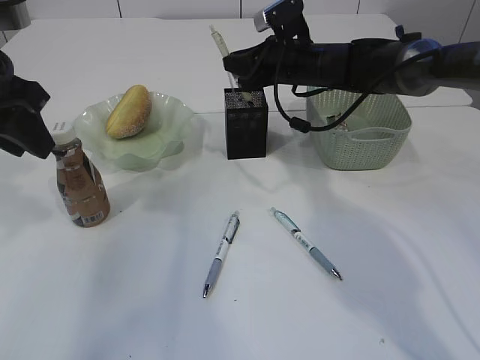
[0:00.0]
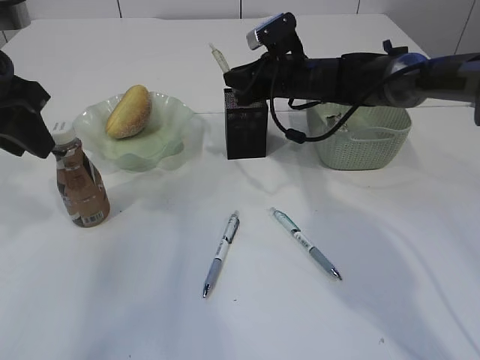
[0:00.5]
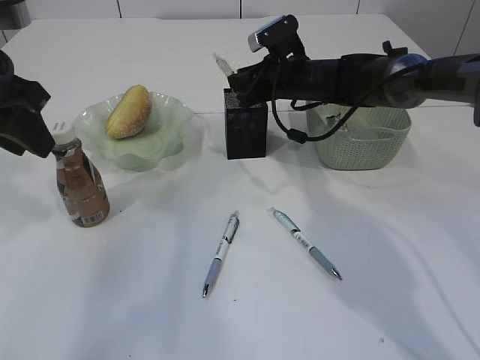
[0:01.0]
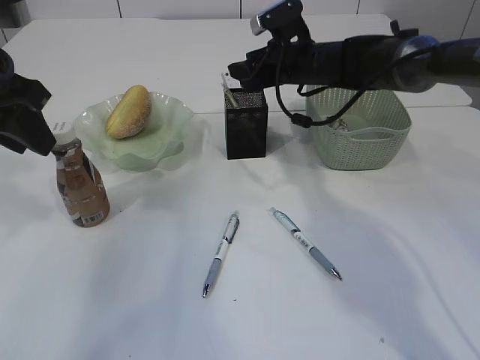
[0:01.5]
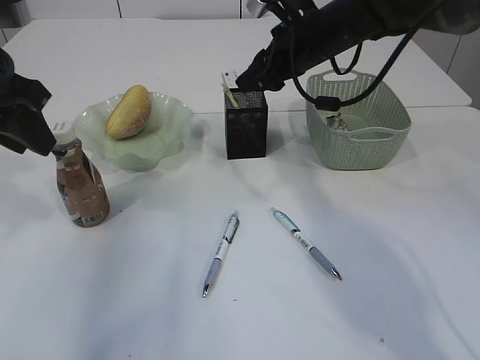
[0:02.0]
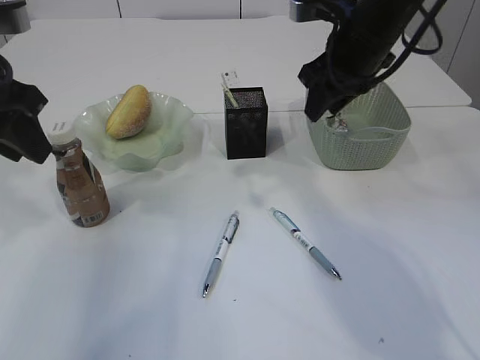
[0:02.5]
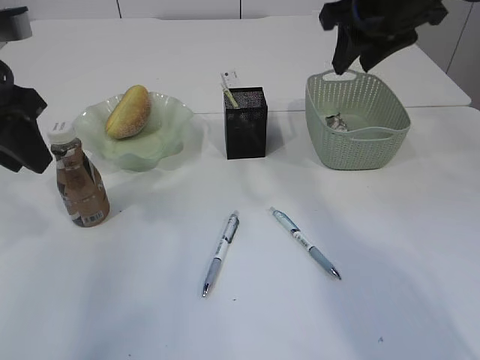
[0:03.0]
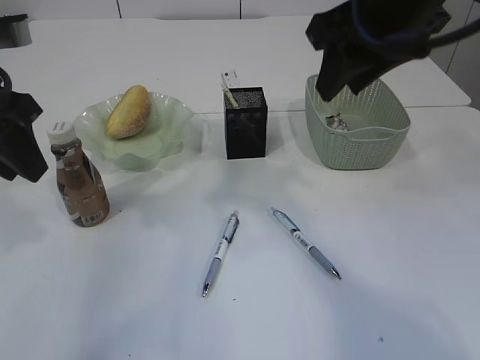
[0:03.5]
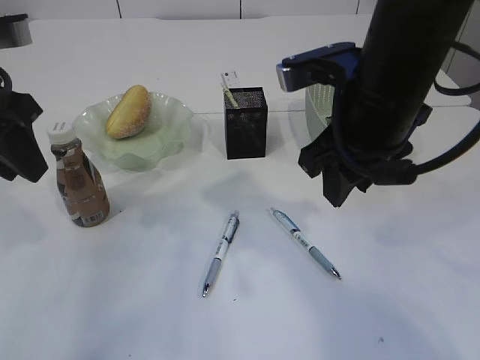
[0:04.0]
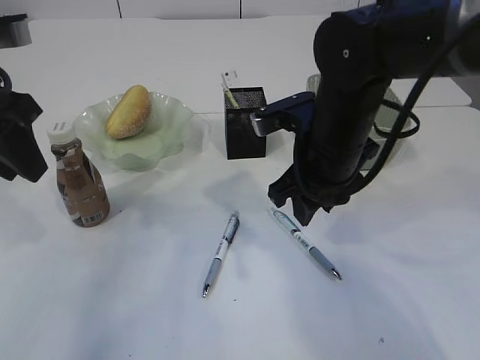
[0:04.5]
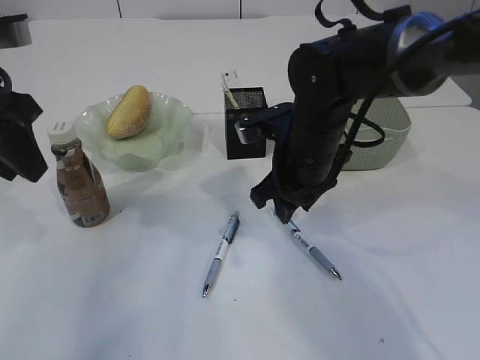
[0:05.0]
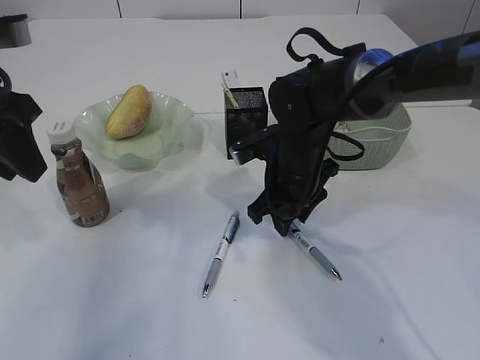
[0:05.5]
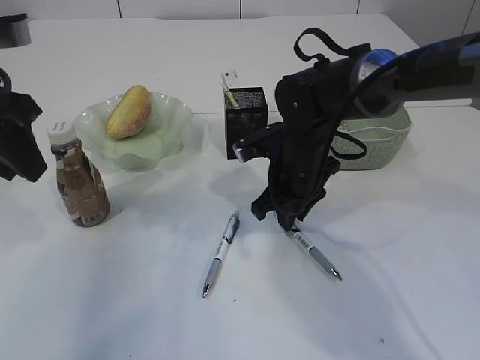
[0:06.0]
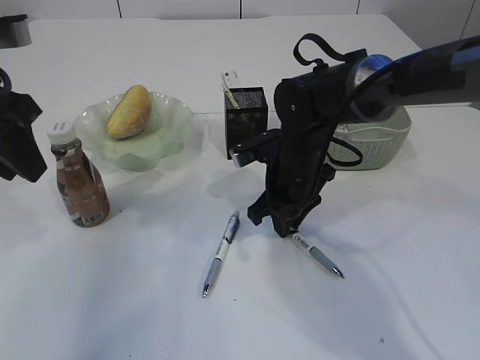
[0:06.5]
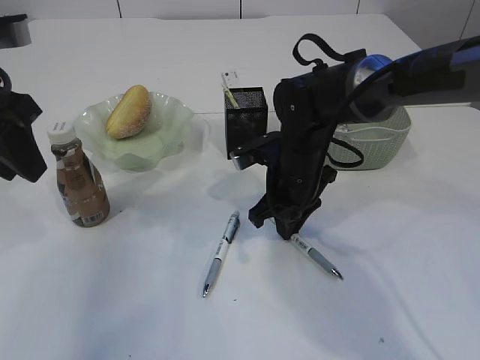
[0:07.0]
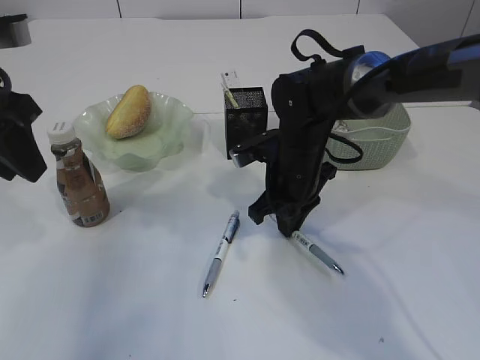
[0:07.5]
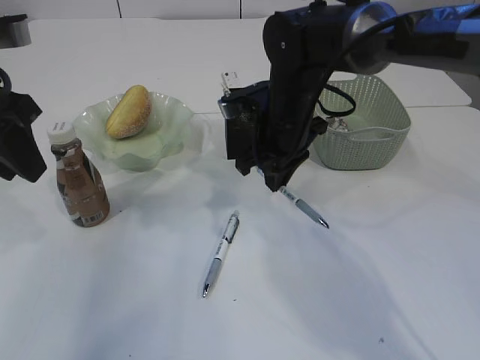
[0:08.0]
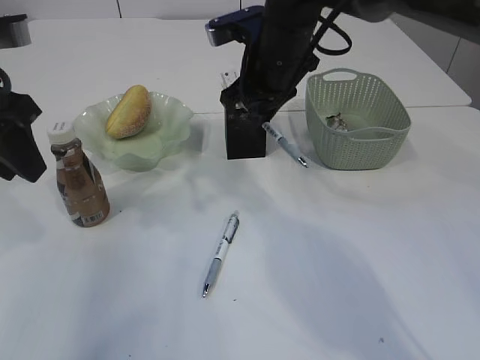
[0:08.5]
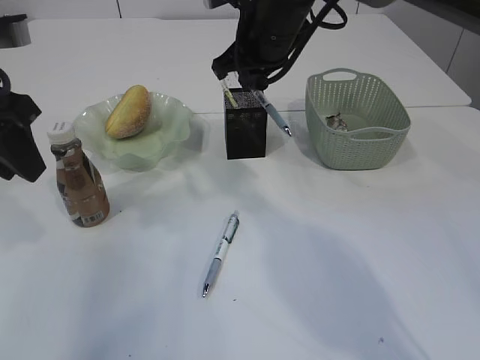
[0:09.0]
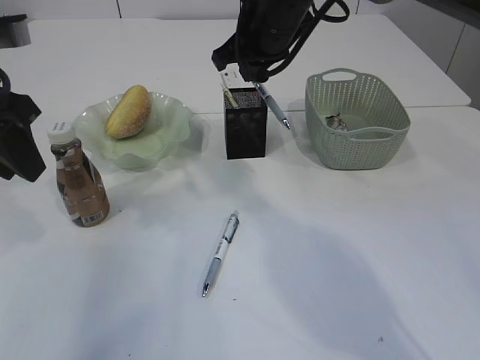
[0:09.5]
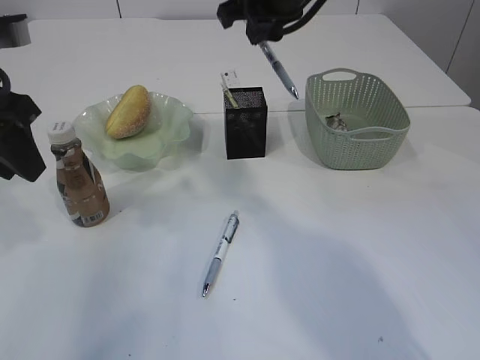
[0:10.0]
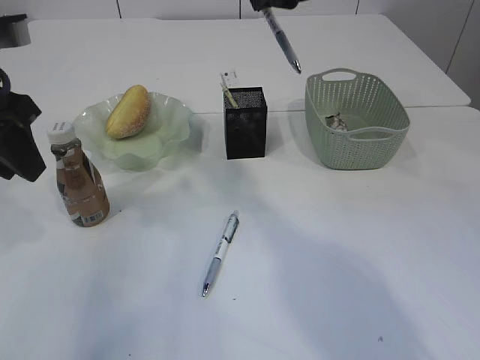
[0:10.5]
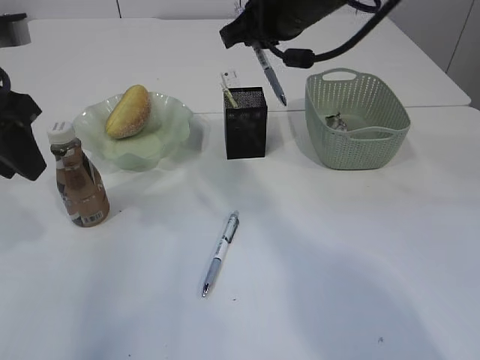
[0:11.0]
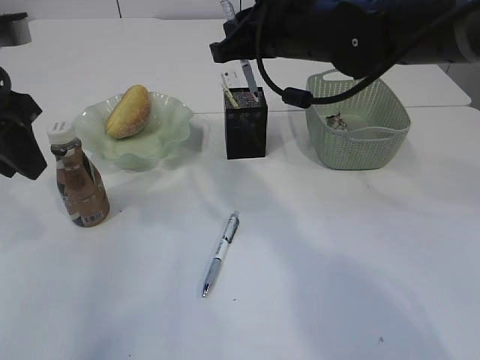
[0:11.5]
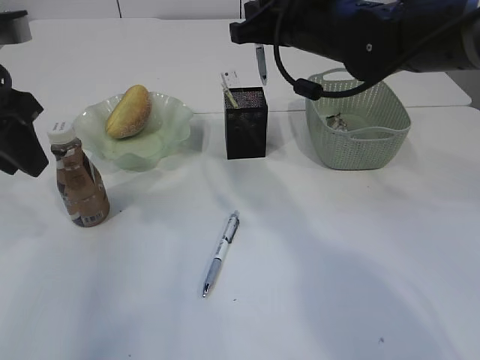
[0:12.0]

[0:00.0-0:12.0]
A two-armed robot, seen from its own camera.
Step, 0:02.0 to 0:08.0: Pick up the pen with right arm.
0:00.0 to 0:02.0: The right gripper moves upward, about 5 cm, and opens up.
0:02.0 to 0:04.0: The right gripper moves backward, some 15 cm.
0:04.0 to 0:06.0: The right gripper moves downward and forward, some 20 cm.
0:06.0 to 0:08.0: The right gripper shifts roughly 5 cm upward.
0:08.0 to 0:10.0: The right gripper is displaced upward by roughly 15 cm.
0:10.0 to 0:12.0: The right gripper is displaced downward by about 5 cm.

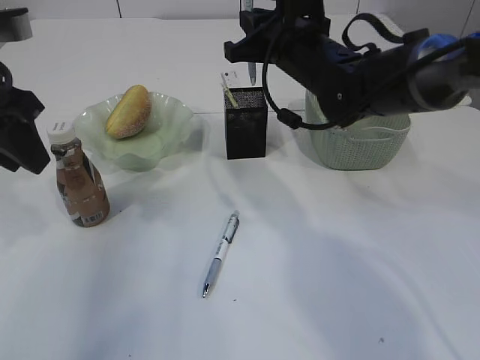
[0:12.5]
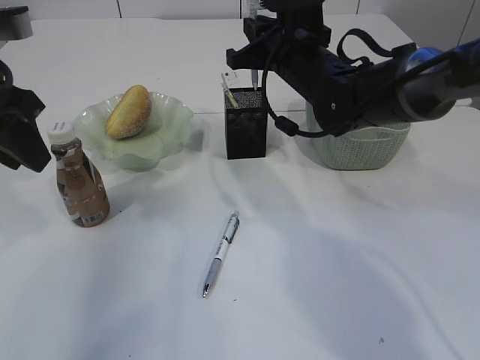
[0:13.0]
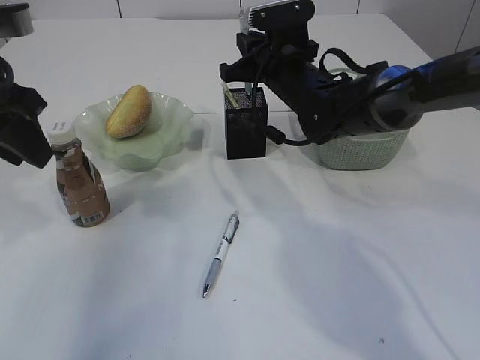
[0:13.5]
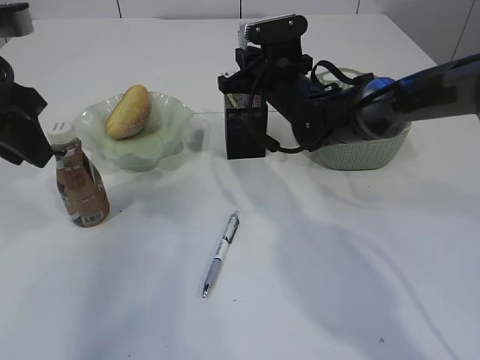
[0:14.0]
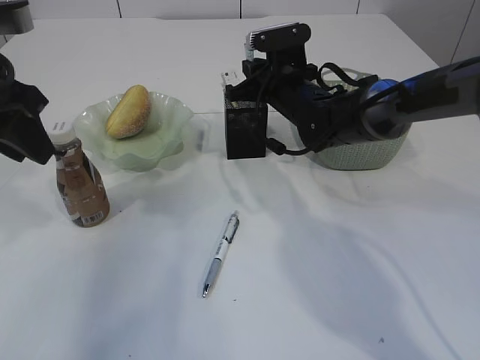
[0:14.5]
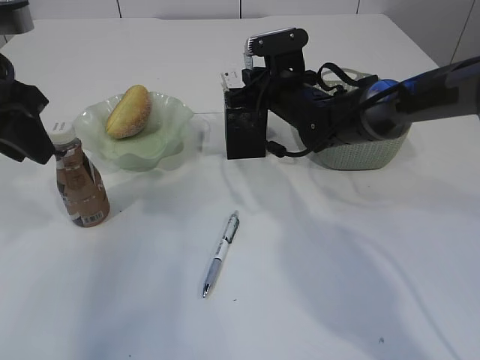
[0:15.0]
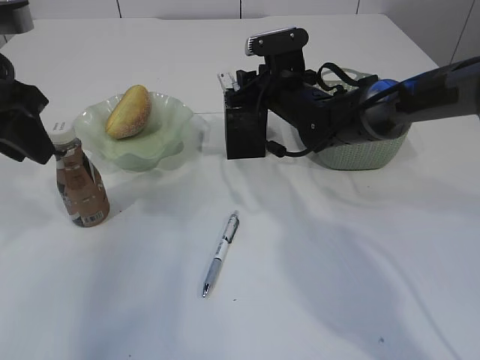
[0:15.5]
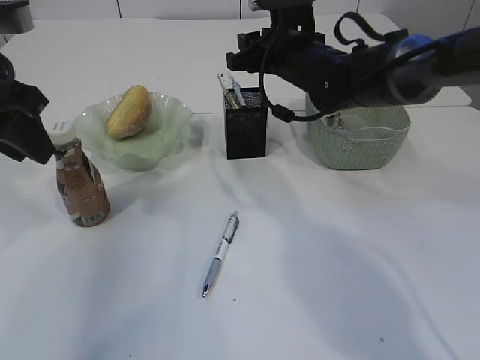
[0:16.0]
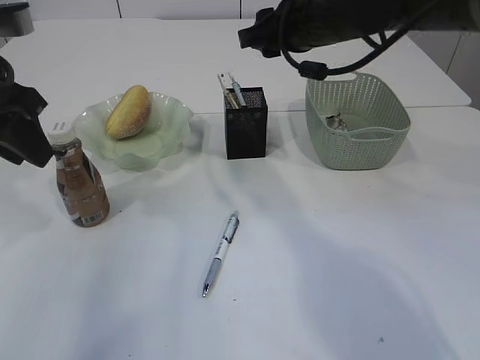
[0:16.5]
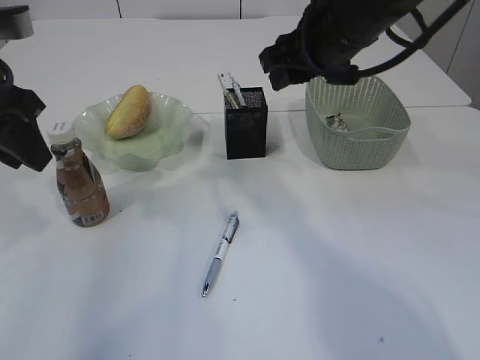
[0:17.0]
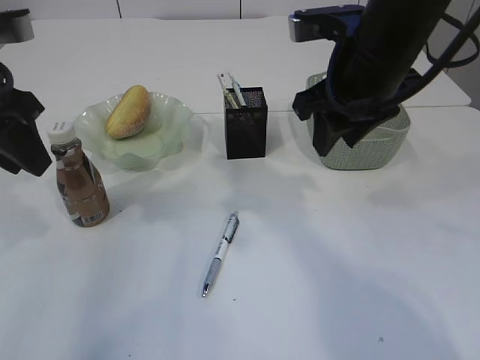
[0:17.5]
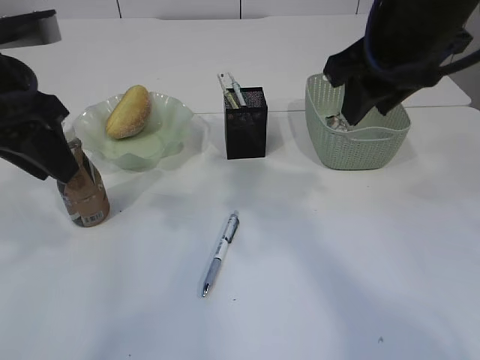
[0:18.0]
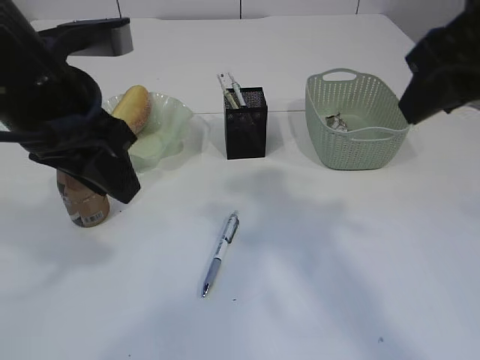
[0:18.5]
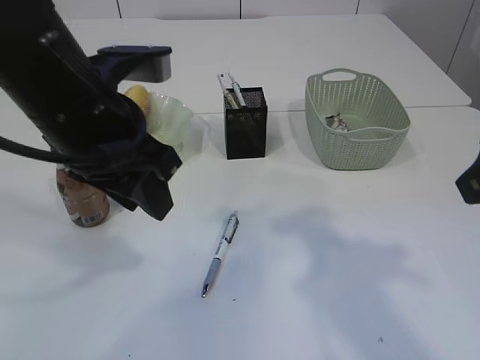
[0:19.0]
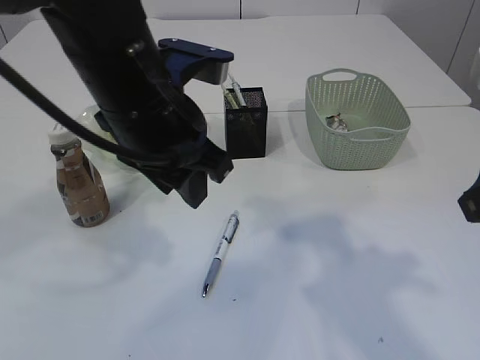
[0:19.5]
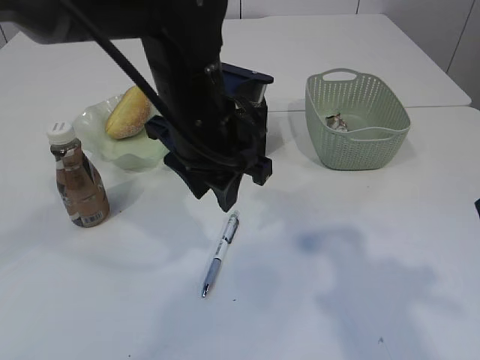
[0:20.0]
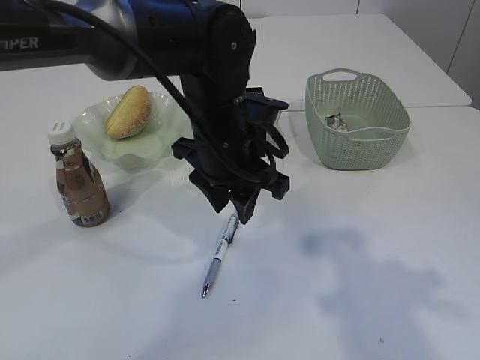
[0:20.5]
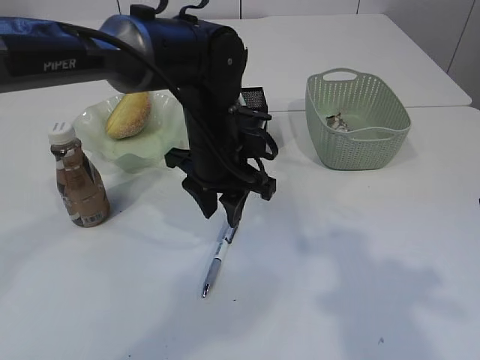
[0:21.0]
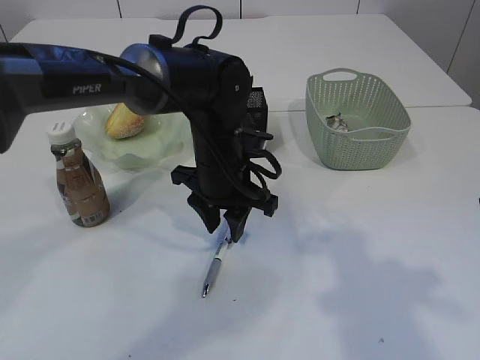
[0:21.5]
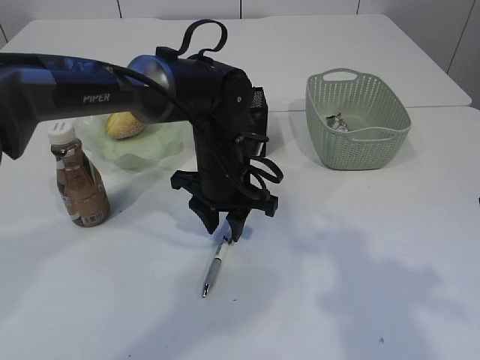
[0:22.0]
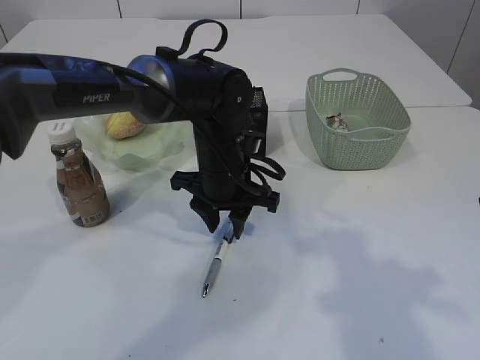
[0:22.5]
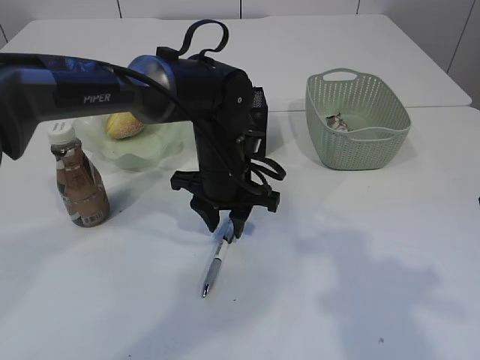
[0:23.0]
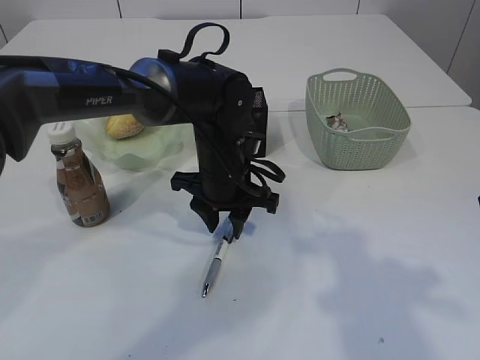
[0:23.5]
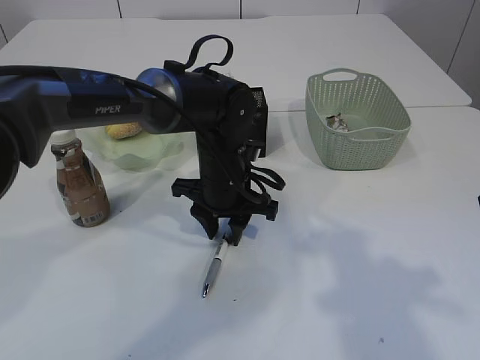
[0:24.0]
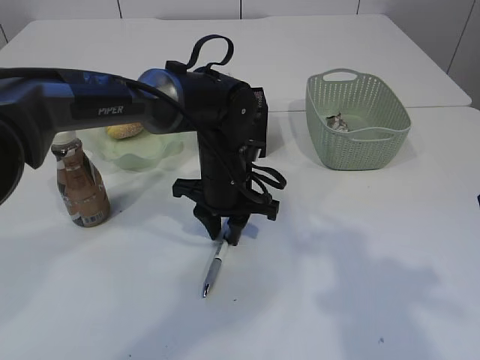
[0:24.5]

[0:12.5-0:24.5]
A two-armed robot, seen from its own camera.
Step, 0:12.5 to 0:16.0: Place the pen into the pen holder.
0:12.5 to 0:14.5: The right gripper shifts about 5 cm downward.
0:14.5 to 0:16.5: The right gripper goes approximately 15 cm upward and backward, and opens.
0:16.5 to 0:18.5: The left gripper heads to the right, covering some 10 cm. Meanwhile the right gripper travels backward, upward and to the right by roughly 20 cm.
0:18.5 to 0:20.5: The left gripper shifts approximately 20 cm to the right, downward and forward. The right gripper moves backward and downward, about 10 cm.
0:20.5 to 0:22.5: The left gripper is displaced downward by approximately 5 cm.
0:22.5 to 0:24.5: There are only small adjustments of the grippers.

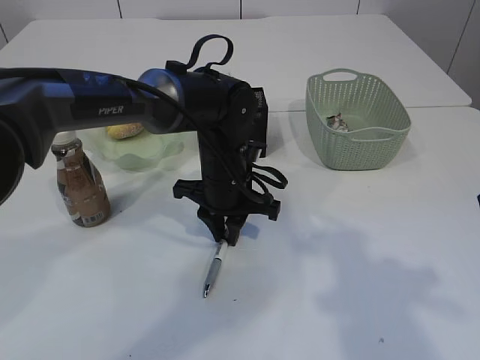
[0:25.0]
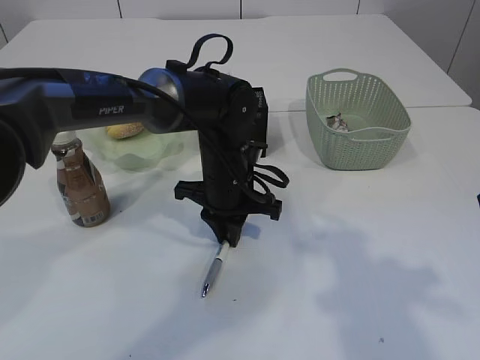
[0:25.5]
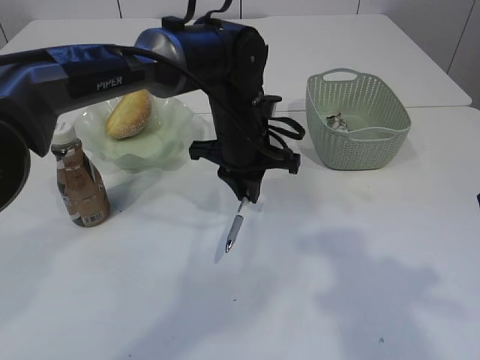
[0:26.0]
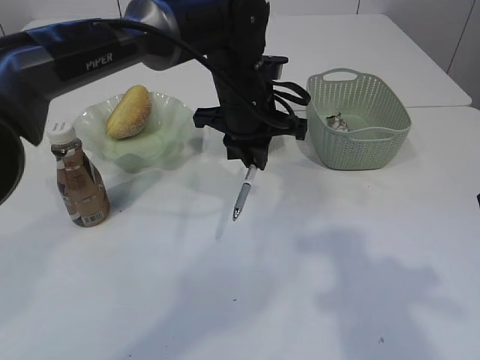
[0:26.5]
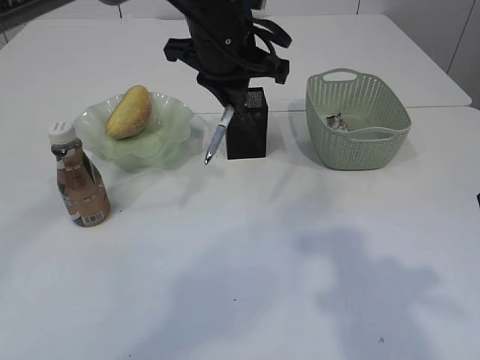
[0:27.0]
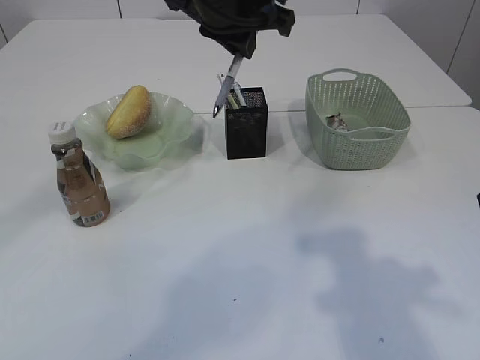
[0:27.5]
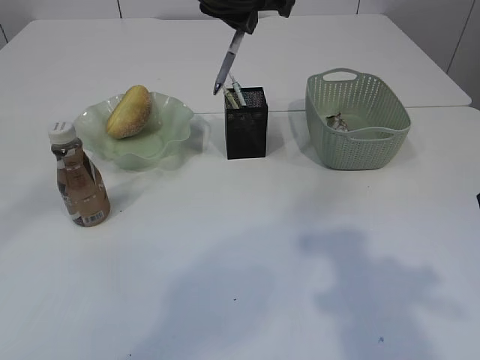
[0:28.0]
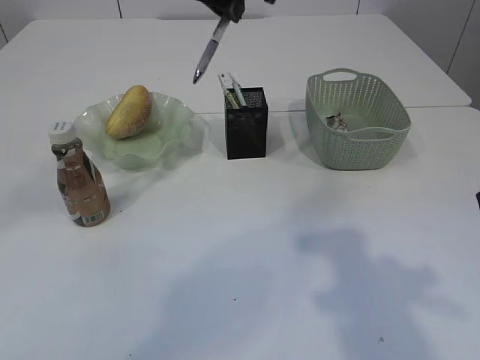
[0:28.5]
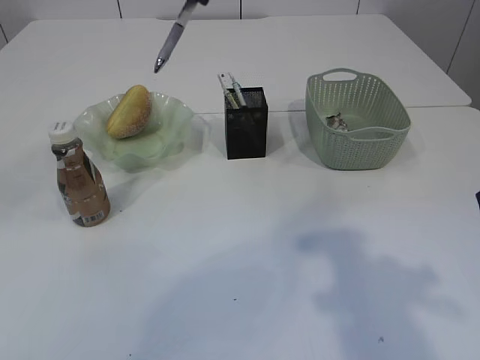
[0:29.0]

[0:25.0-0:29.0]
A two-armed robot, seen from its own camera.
0:25.0 to 0:27.0: The left gripper travels upward by roughly 20 cm.
0:27.0 to 0:29.0: The left gripper heads upward, covering about 10 cm.
